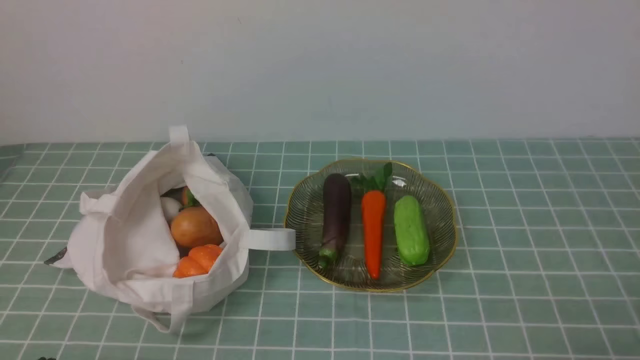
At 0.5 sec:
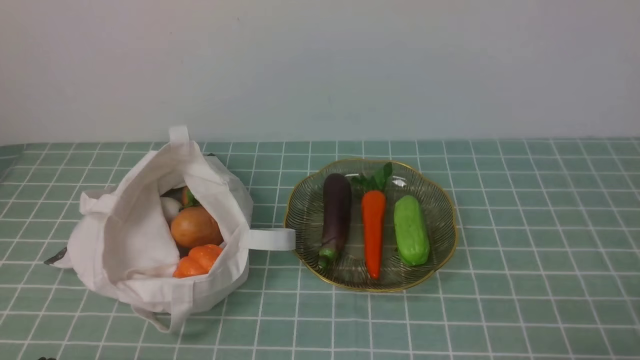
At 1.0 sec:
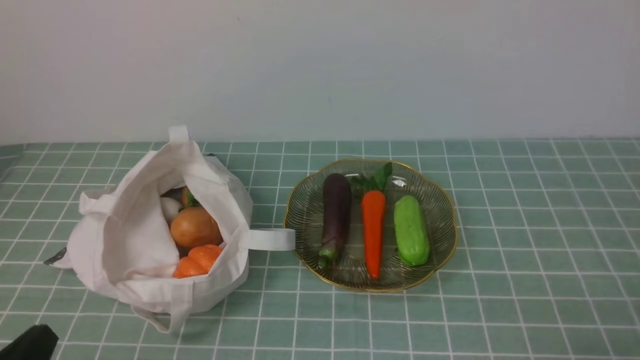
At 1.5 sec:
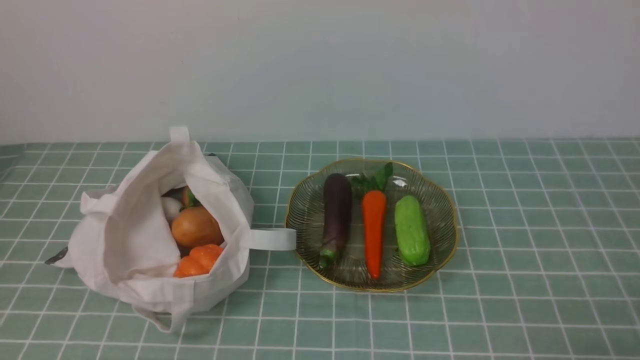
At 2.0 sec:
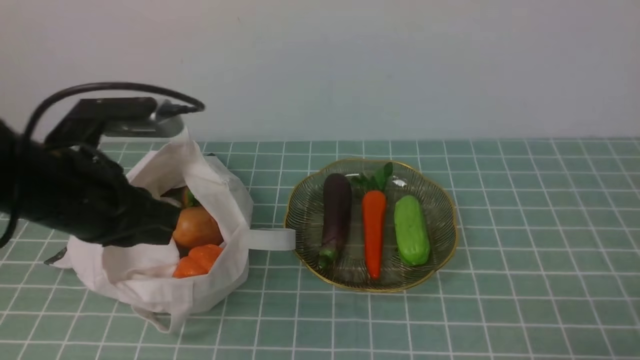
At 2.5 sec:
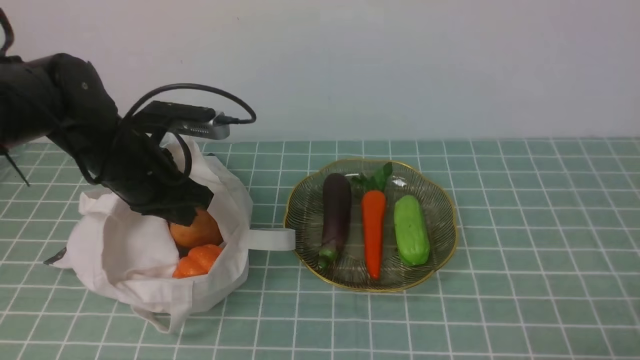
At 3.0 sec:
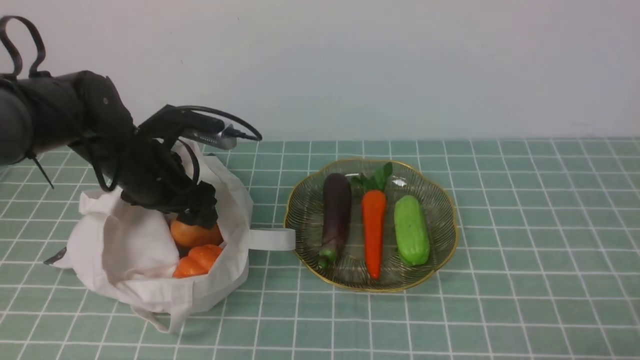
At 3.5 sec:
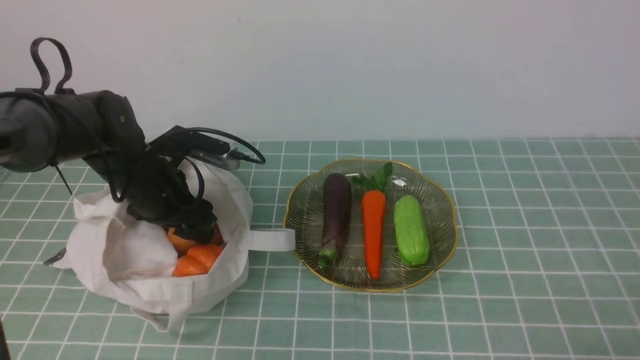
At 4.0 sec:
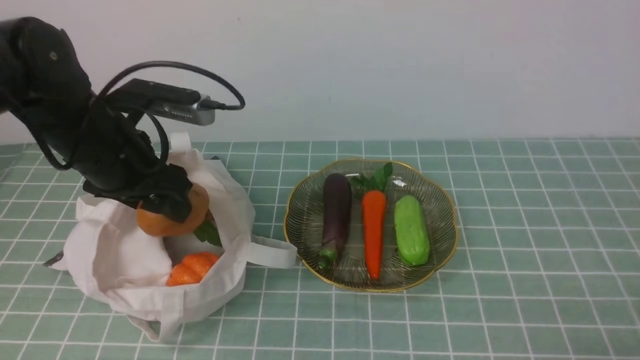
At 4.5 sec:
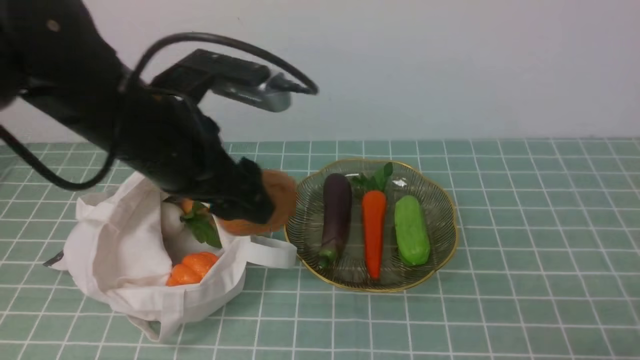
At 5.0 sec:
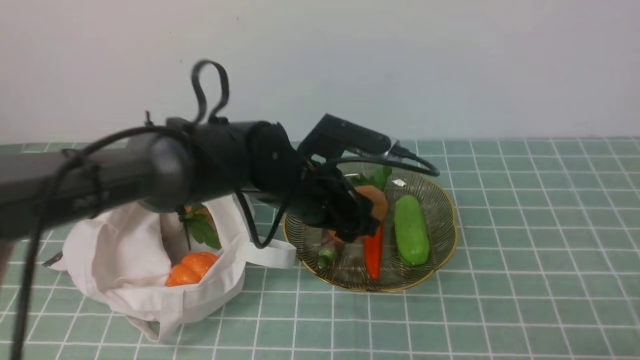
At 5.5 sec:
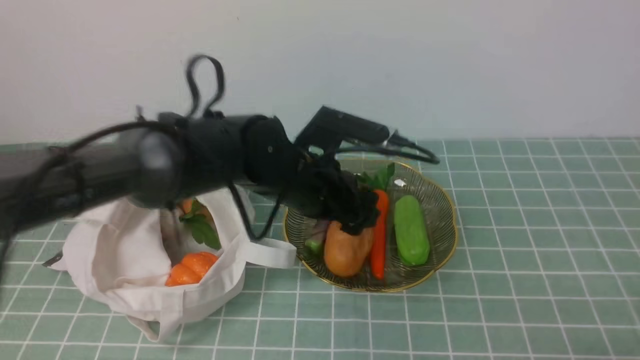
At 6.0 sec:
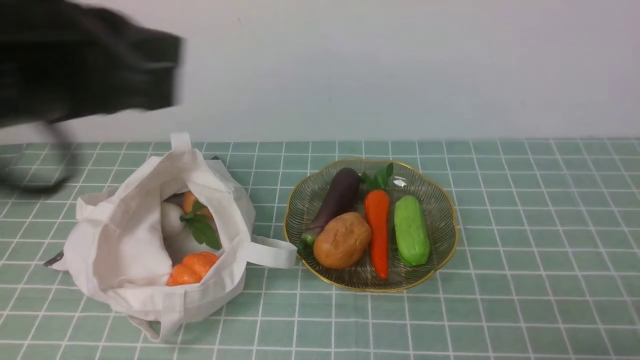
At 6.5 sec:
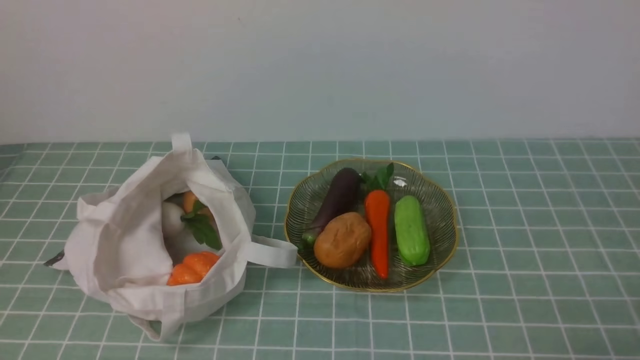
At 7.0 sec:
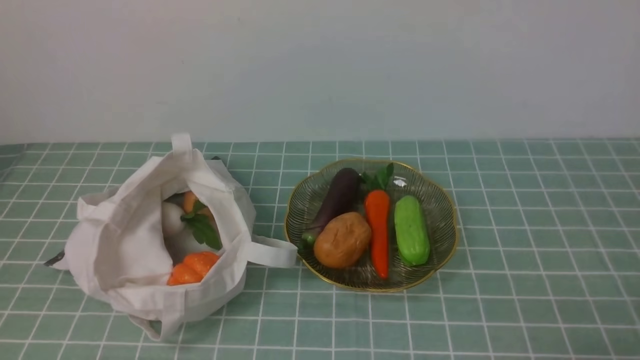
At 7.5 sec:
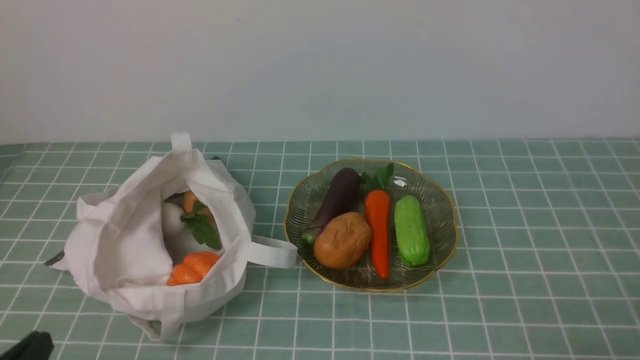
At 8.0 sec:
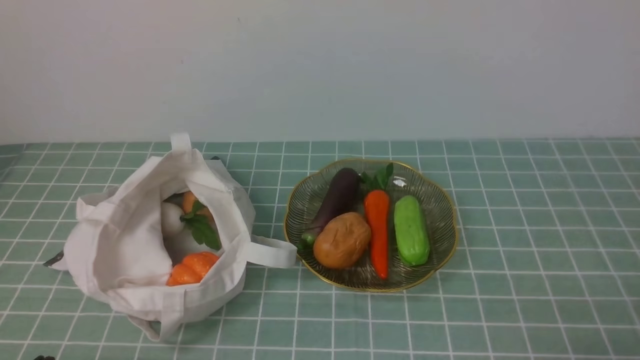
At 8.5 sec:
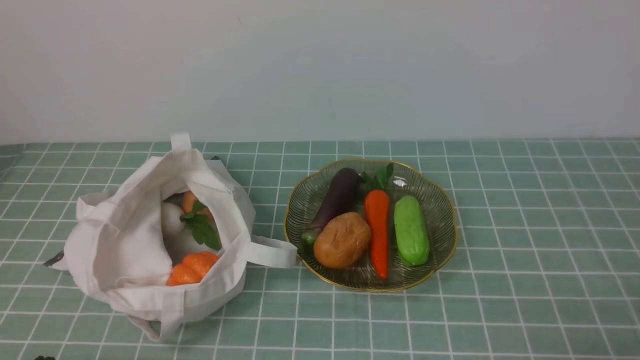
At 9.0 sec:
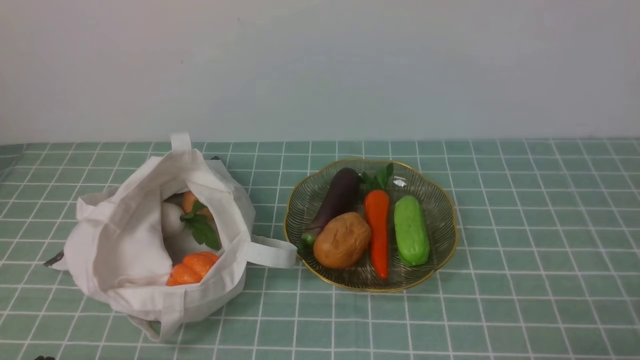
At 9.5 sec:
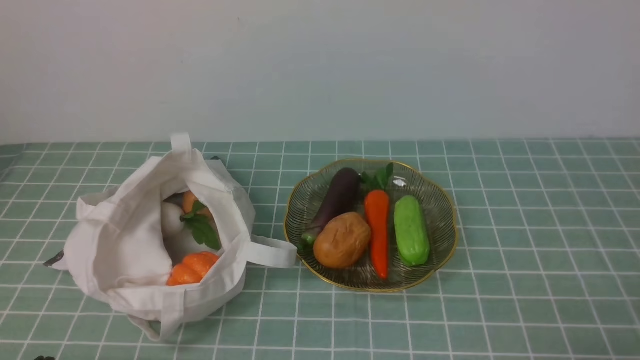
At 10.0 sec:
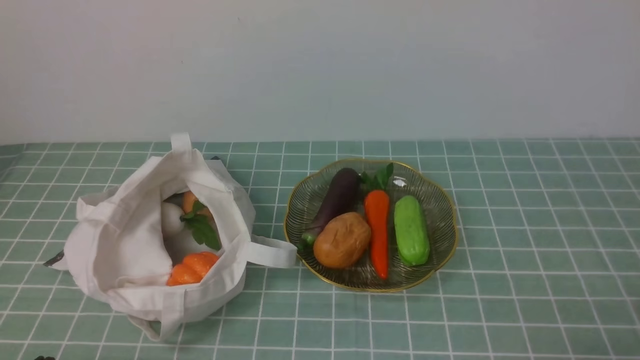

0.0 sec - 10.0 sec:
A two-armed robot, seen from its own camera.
Task of the whole recording: take vegetables from cloth bag on blue coffee tablecloth place on plate.
Step, 0.0 sec - 3.5 sec: Grasp the potato with left gripper.
Step, 4.0 sec - 5.5 sec: Place the potato on the plate with left gripper.
0.0 sec - 2.0 sec: The left gripper shifts approximately 25 cm forward and upward.
2.0 sec - 4.0 sec: The left gripper is displaced forward by roughly 5 cm, and opens up.
4.0 sec - 6.0 sec: The left gripper heads backward and upward, covering about 20 cm, and closes.
6.0 sec - 8.0 sec: The left gripper heads downward and backward, covering about 25 cm.
8.0 sec - 10.0 sec: Both grippers stay put.
